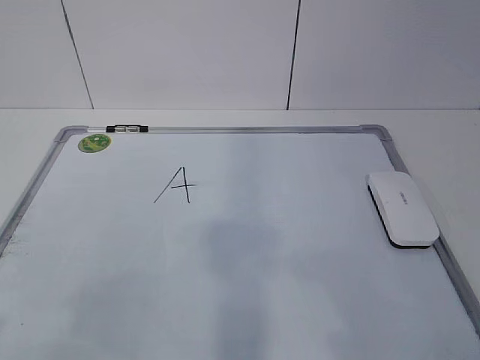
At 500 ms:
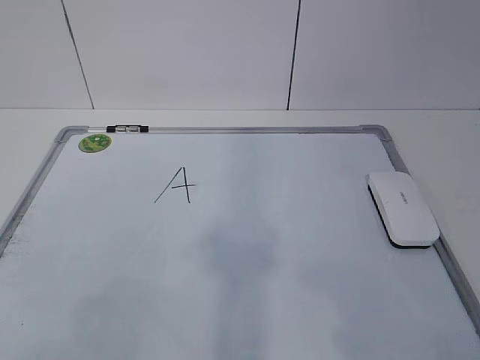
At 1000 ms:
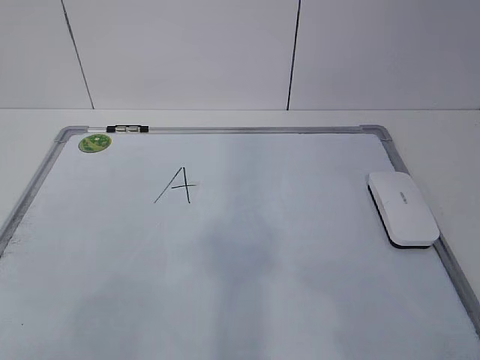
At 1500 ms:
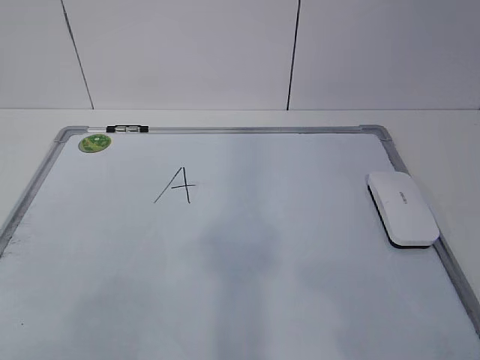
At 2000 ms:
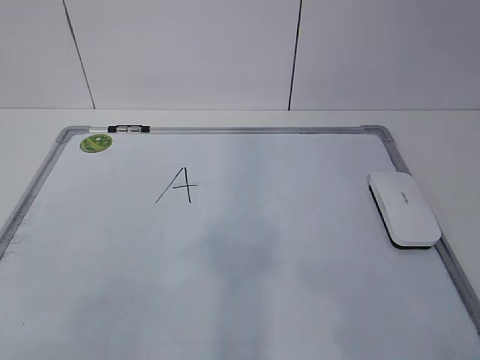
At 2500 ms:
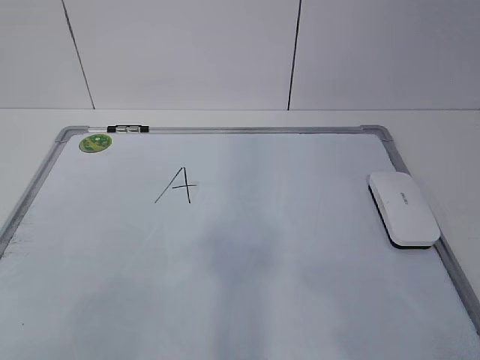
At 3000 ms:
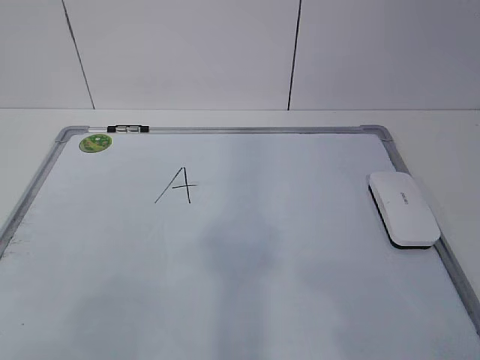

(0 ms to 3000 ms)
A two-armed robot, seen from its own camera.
Task of the whole recording: pick up the eraser on the blackboard and erase the letter "a".
1500 ms - 3000 ms: Neither gripper changes place.
